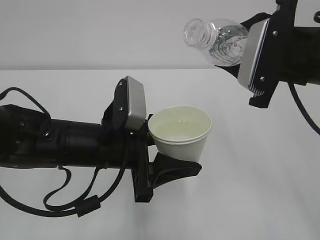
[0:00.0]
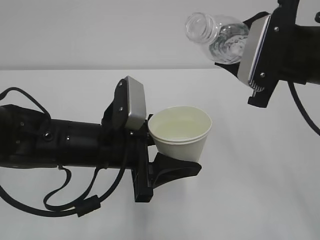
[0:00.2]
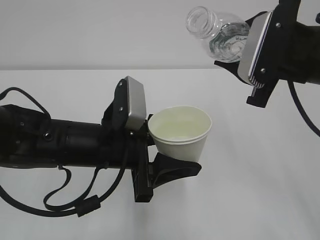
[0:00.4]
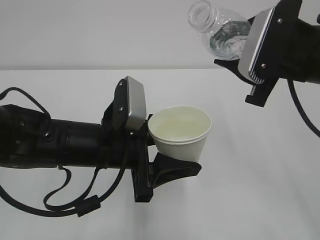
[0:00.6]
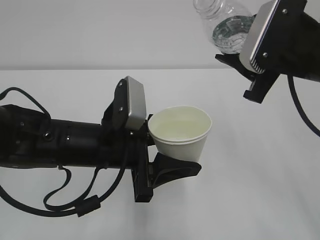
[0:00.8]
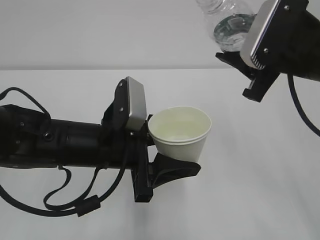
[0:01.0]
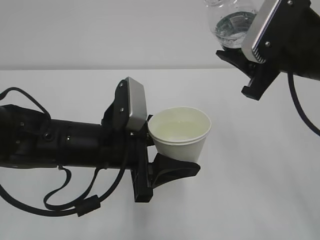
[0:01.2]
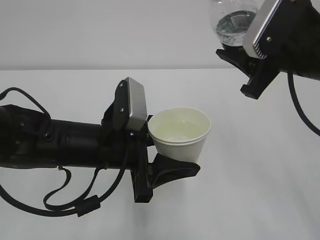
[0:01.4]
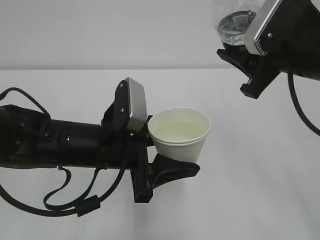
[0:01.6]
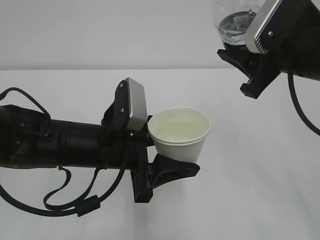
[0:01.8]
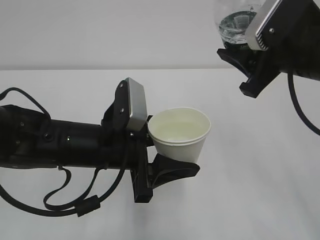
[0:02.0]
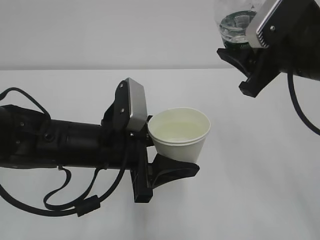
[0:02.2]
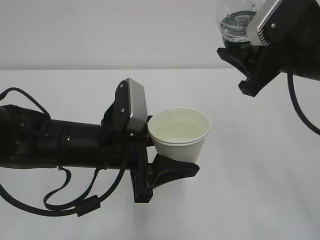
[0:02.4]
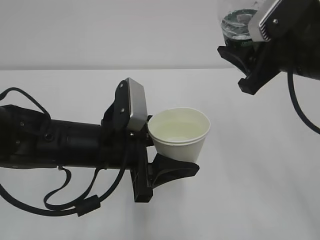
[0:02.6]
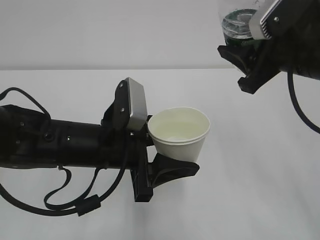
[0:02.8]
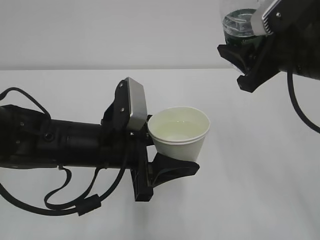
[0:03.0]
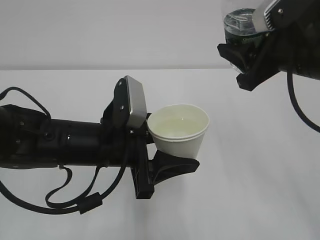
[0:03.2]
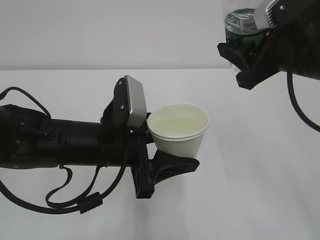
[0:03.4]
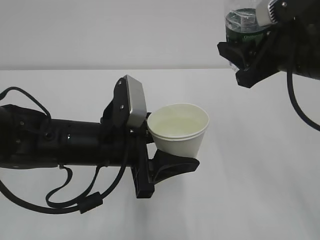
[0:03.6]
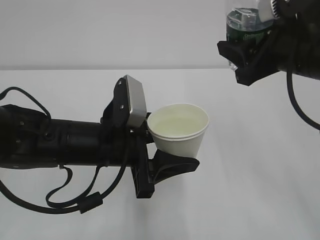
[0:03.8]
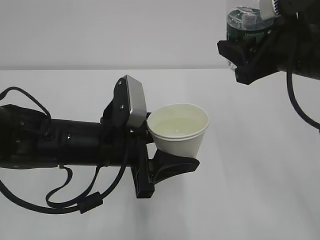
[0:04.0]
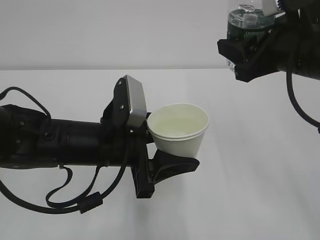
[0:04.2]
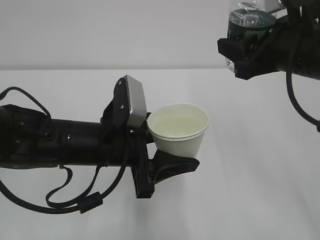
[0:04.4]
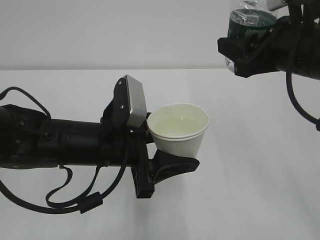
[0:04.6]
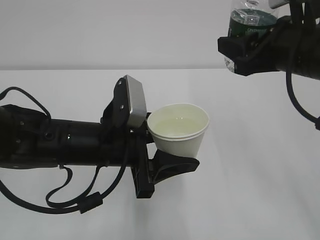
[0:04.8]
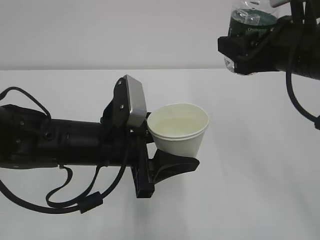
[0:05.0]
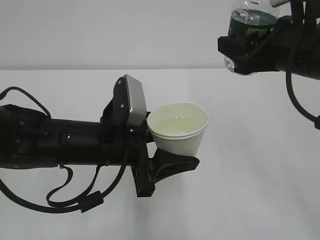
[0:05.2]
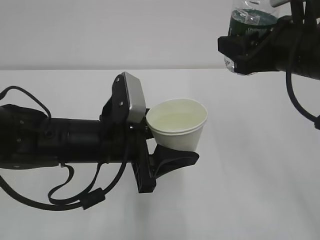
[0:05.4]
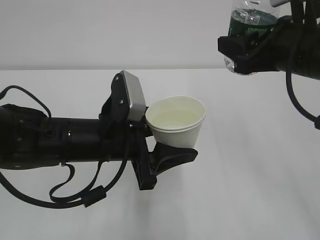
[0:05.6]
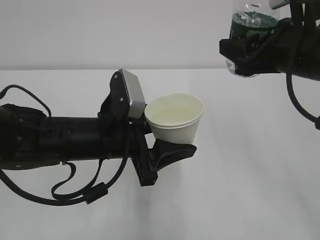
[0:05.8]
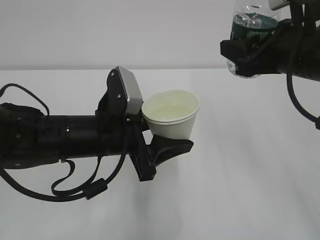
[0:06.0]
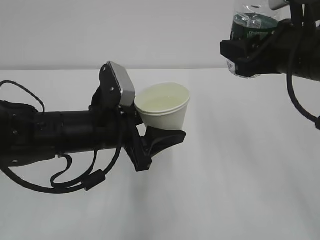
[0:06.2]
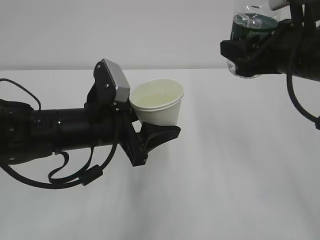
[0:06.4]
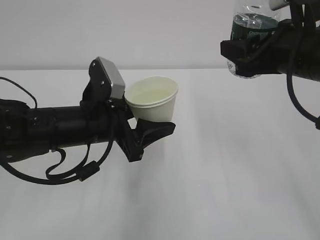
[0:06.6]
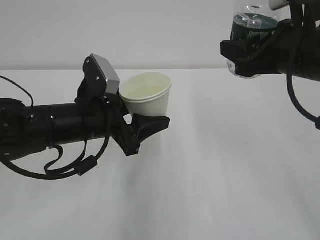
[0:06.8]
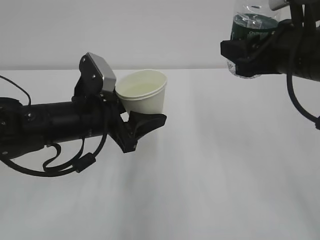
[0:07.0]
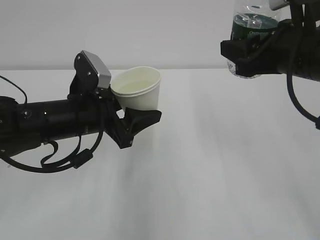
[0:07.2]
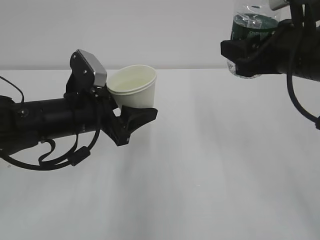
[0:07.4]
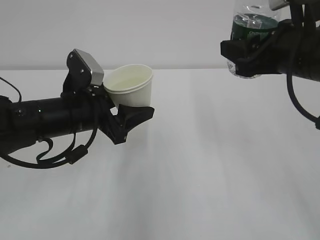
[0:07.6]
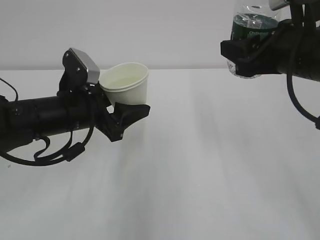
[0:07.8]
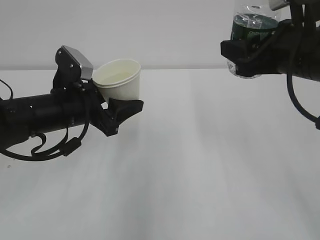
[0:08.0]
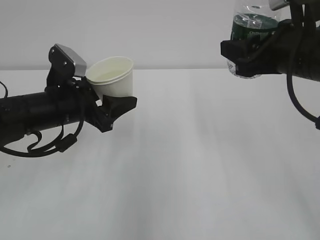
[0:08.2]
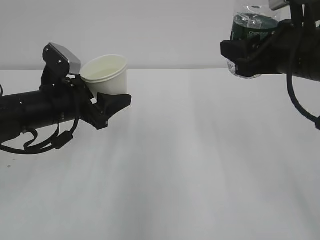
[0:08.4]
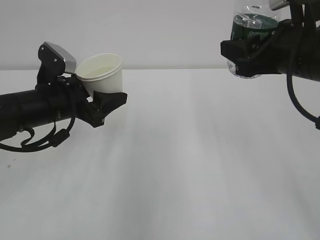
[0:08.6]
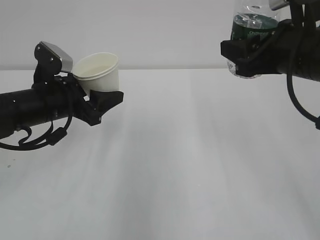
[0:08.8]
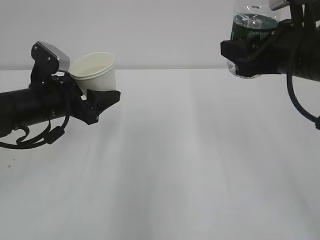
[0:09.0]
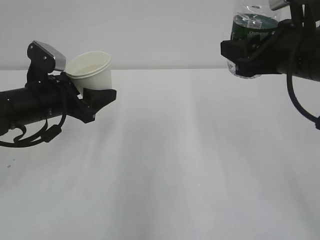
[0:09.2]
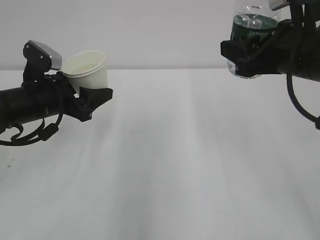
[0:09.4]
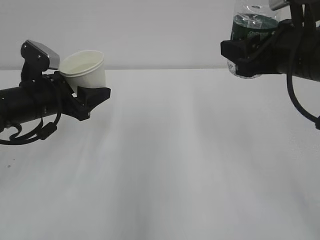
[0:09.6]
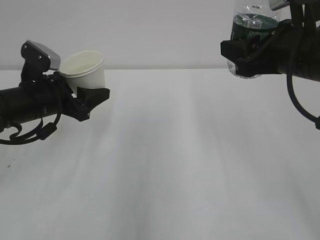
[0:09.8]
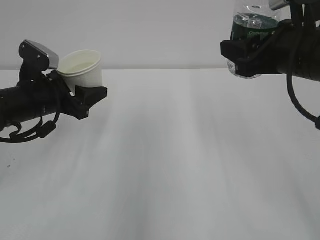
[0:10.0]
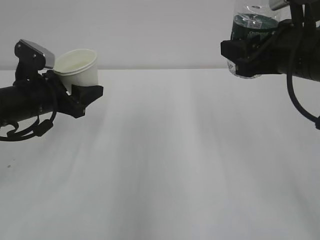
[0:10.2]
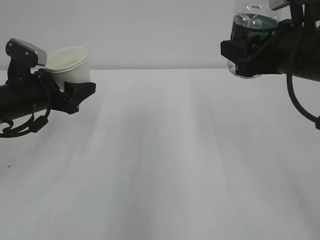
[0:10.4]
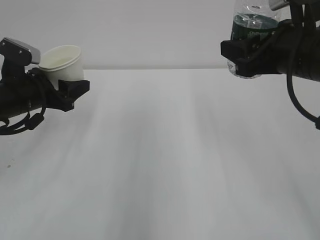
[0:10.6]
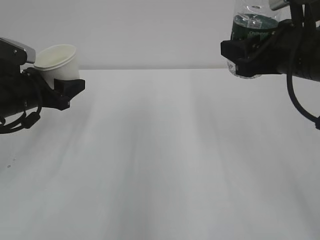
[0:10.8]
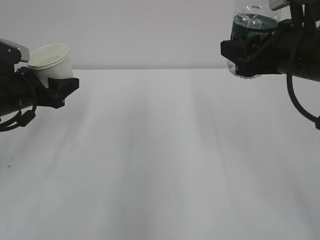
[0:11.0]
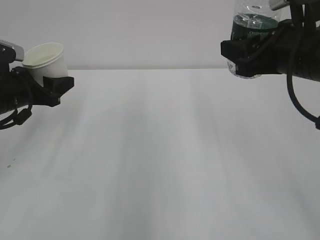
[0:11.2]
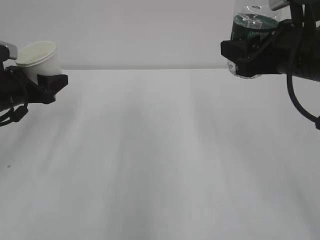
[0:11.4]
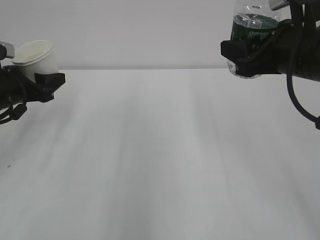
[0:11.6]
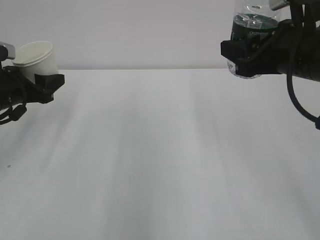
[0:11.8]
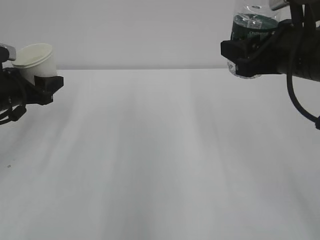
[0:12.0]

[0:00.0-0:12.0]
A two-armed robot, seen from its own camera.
0:01.6 to 0:03.0: The grippers make only small movements.
0:03.0 to 0:04.4: There are only small adjustments of the grippers.
0:04.4 to 0:06.0: The grippers make only small movements.
0:06.0 to 0:07.6: The left gripper travels to the left by roughly 5 cm.
0:07.6 to 0:09.0: The left gripper goes roughly 5 cm to the left.
0:09.0 to 0:10.4: The grippers stay close to where they were, moving slightly.
0:10.4 to 0:12.0: The left gripper goes roughly 5 cm to the left.

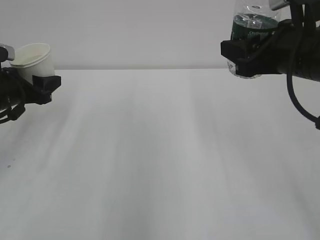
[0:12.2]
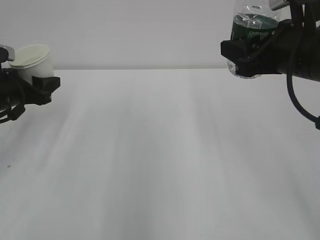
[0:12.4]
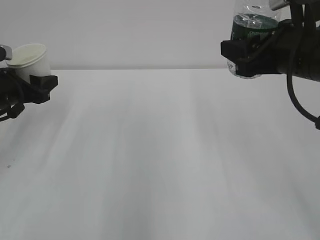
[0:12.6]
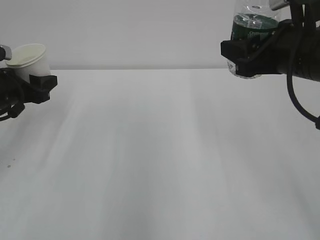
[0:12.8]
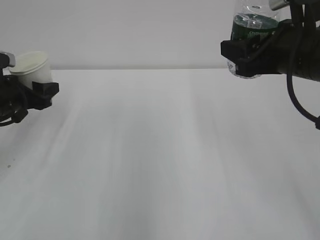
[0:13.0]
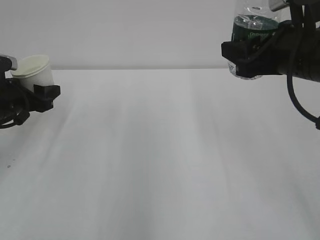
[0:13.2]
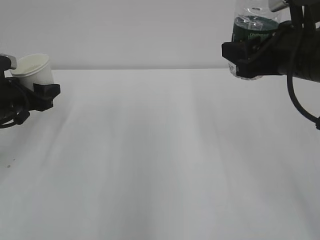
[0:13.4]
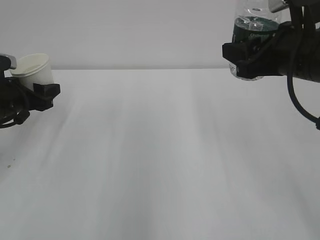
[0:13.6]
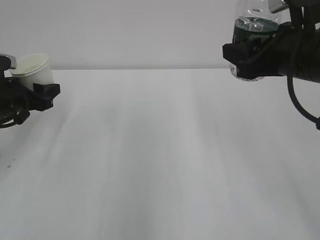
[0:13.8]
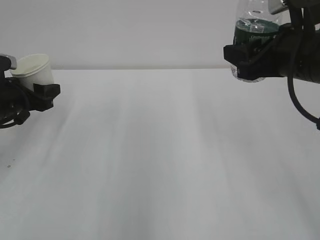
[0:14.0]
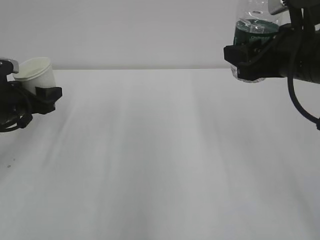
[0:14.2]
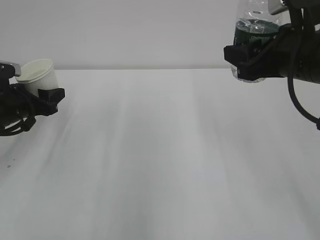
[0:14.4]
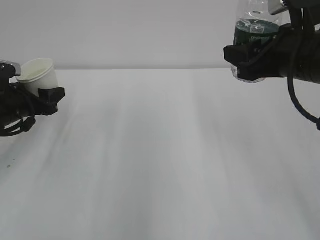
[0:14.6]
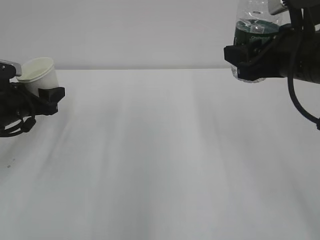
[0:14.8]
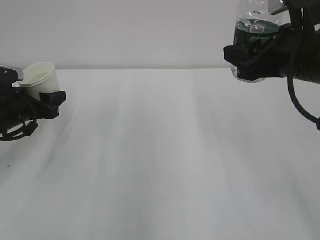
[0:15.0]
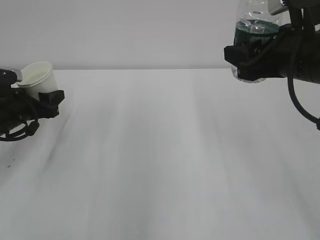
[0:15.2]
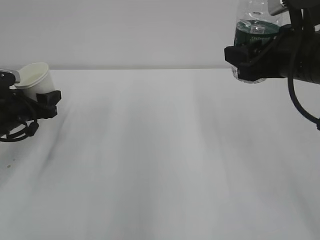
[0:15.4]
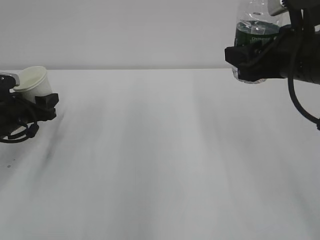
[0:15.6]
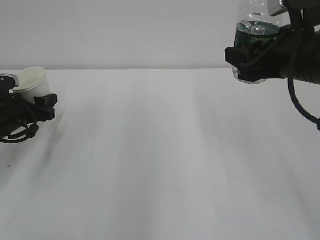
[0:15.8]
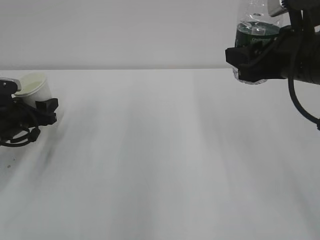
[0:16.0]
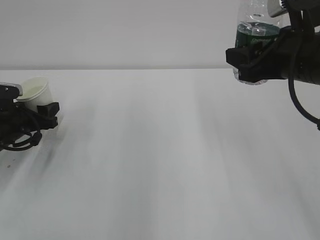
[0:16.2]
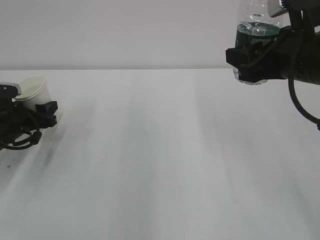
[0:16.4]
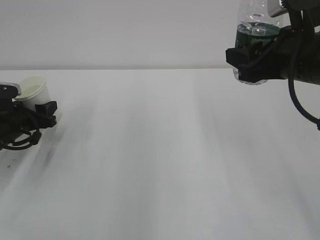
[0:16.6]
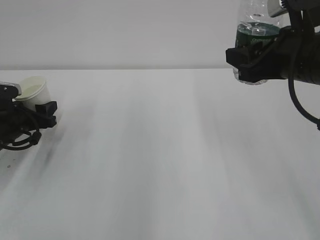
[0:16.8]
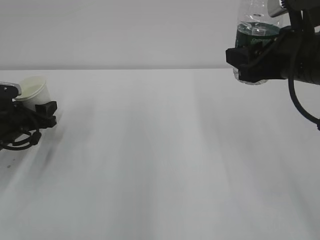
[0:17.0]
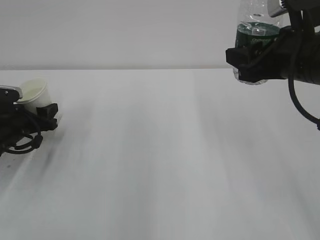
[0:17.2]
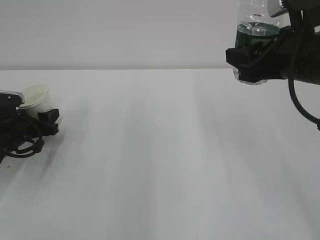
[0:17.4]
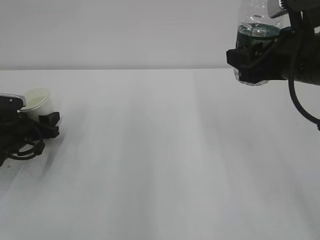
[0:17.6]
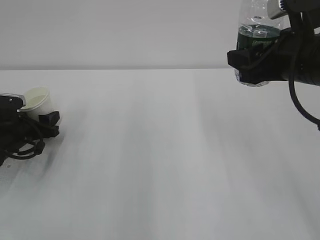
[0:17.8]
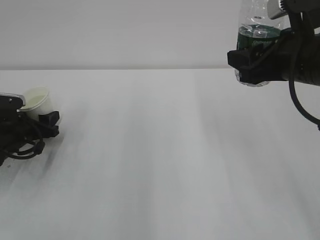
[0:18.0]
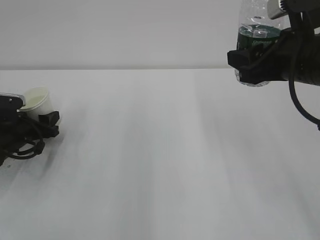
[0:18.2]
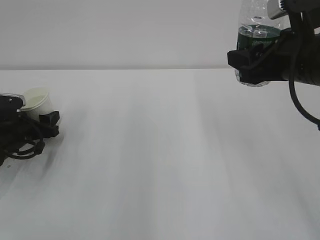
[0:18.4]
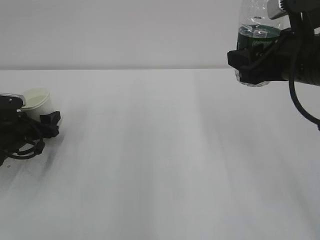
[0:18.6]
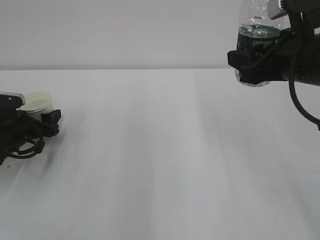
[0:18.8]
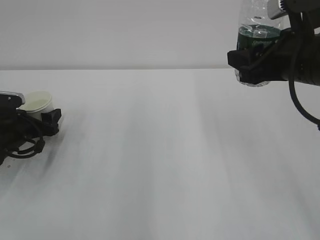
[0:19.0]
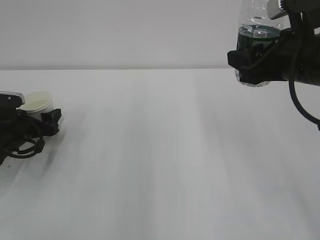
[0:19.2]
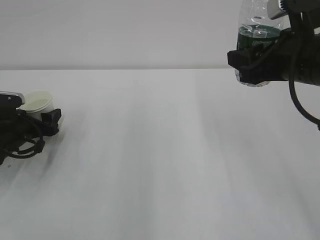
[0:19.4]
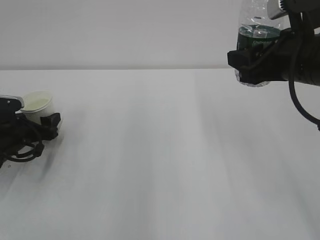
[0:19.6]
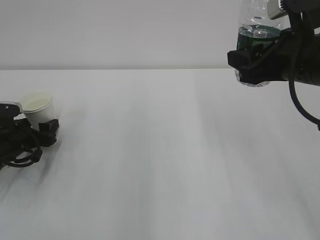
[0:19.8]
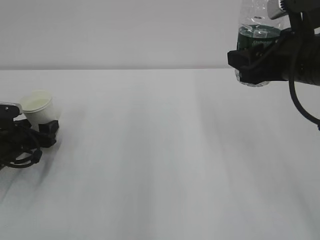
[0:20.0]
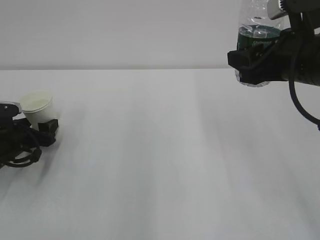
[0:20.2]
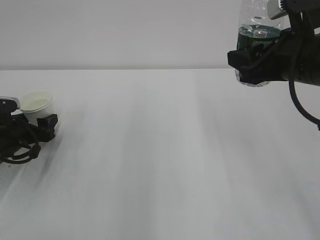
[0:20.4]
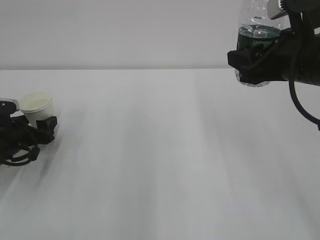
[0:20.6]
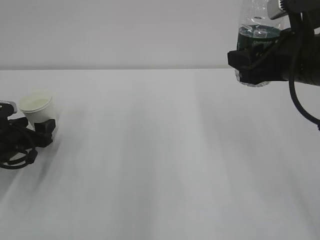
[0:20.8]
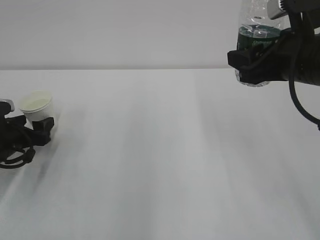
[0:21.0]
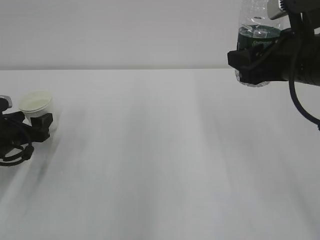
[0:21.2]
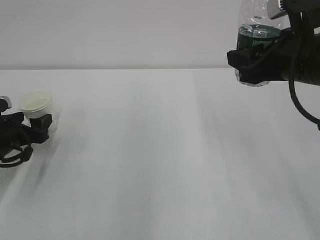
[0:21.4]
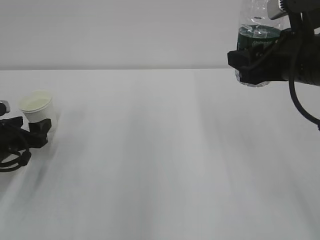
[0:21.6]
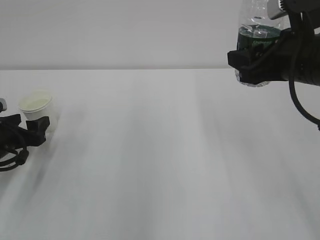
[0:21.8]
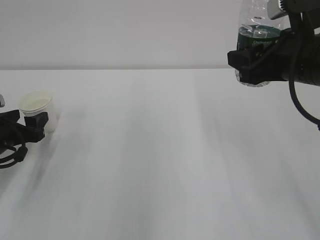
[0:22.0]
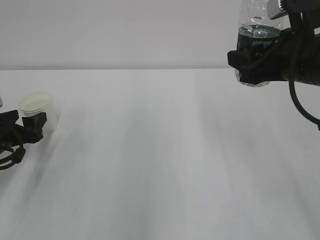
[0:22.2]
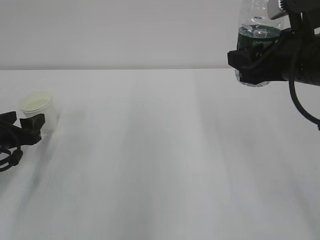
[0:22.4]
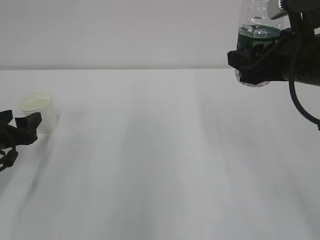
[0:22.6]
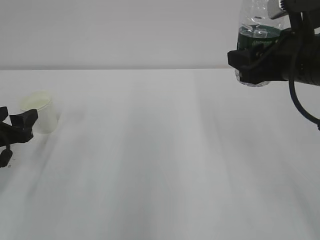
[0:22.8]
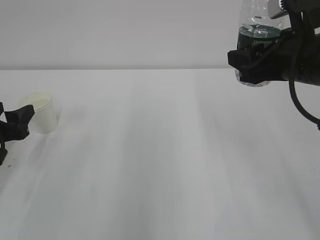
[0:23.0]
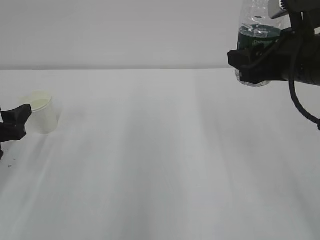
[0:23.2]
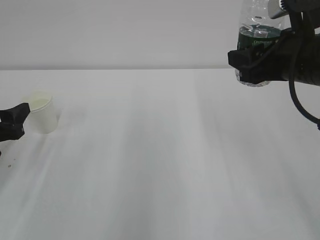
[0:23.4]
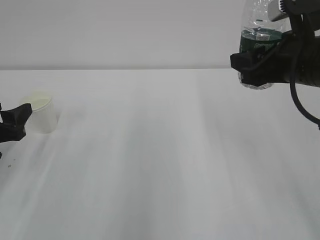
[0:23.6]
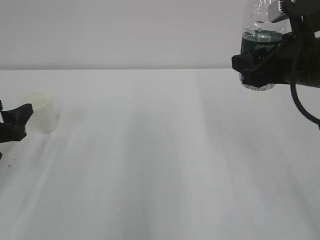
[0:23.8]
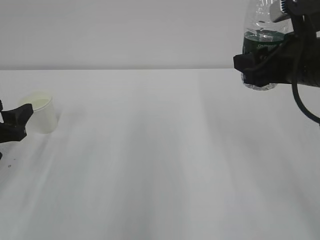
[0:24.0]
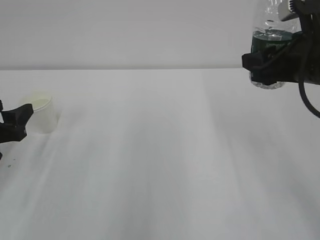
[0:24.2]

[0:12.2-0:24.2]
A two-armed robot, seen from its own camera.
0:12.2 to 0:15.2: The grippers move only a little.
0:15.2 to 0:18.2: The grippers stay close to where they were, moving slightly.
0:18.2 to 0:19.8: The left gripper opens up.
0:19.8 to 0:21.2: The grippers make only small movements.
0:21.2 to 0:22.6: The left gripper changes place by roughly 5 cm.
0:22.6 to 0:24.2: There are only small adjustments of the grippers.
